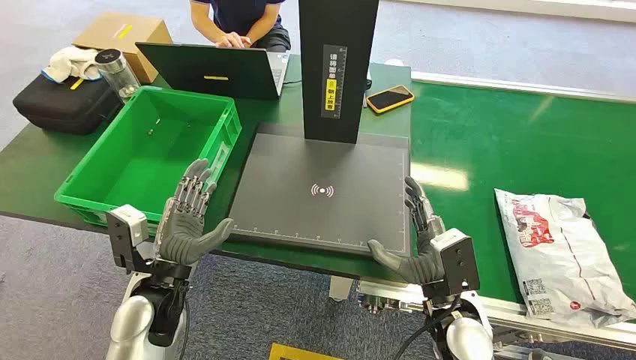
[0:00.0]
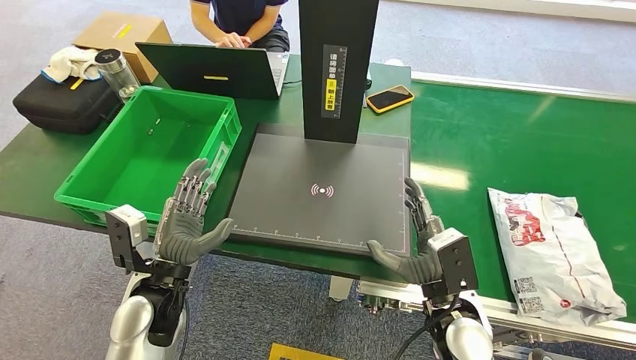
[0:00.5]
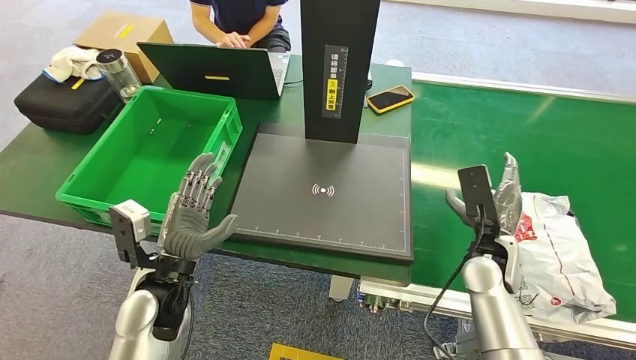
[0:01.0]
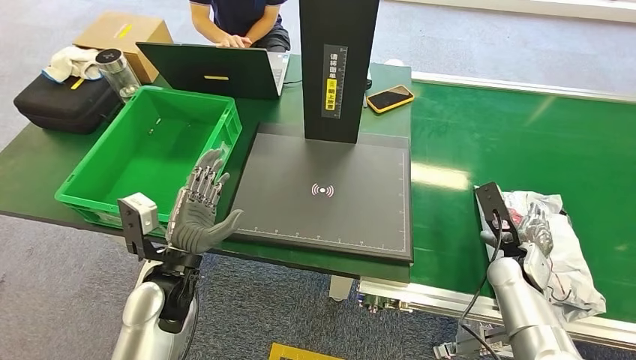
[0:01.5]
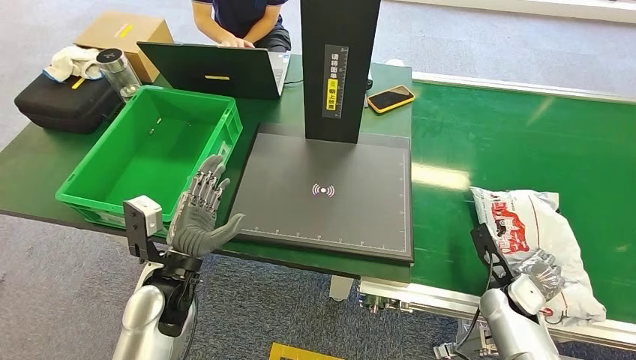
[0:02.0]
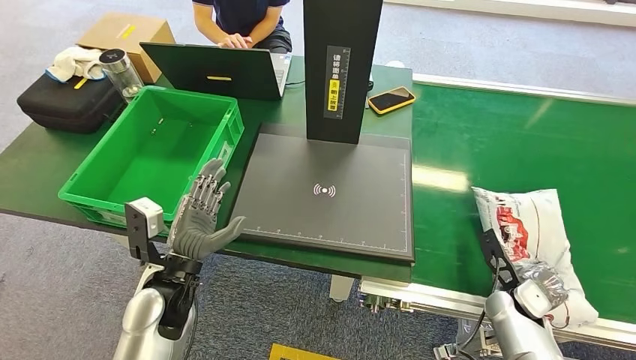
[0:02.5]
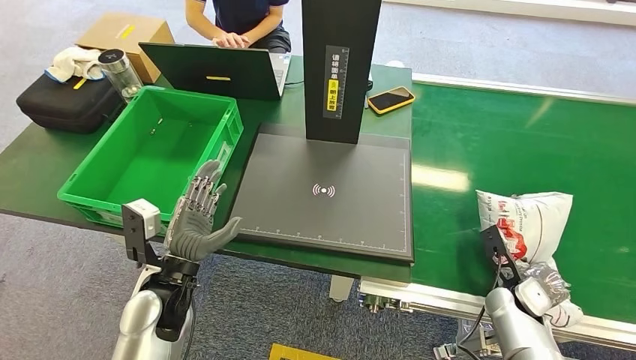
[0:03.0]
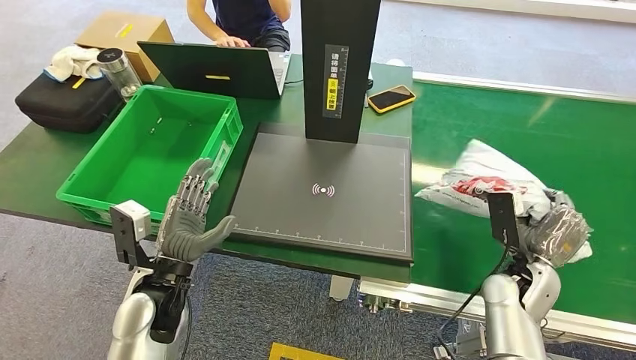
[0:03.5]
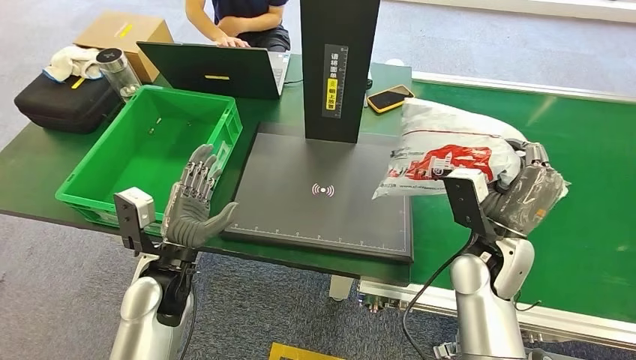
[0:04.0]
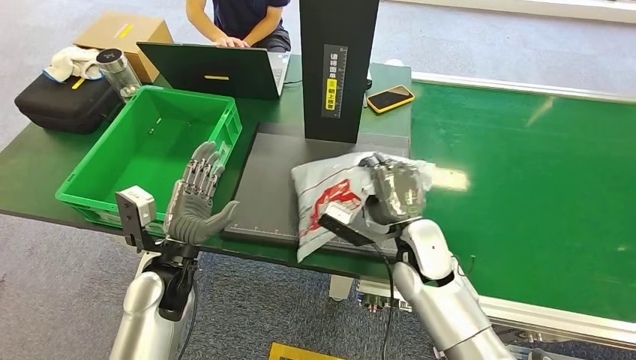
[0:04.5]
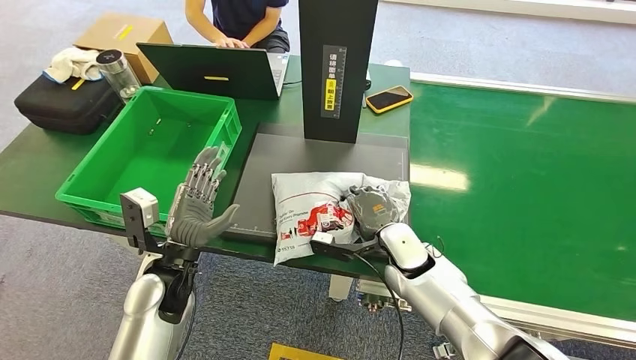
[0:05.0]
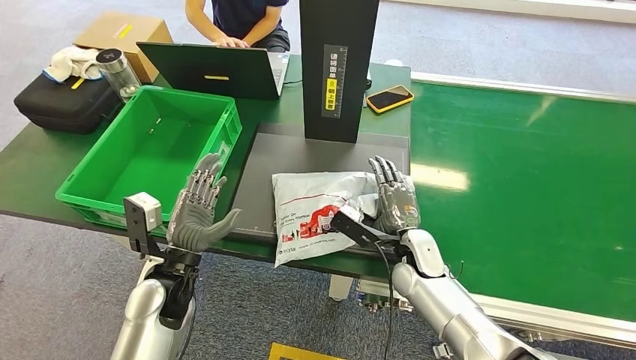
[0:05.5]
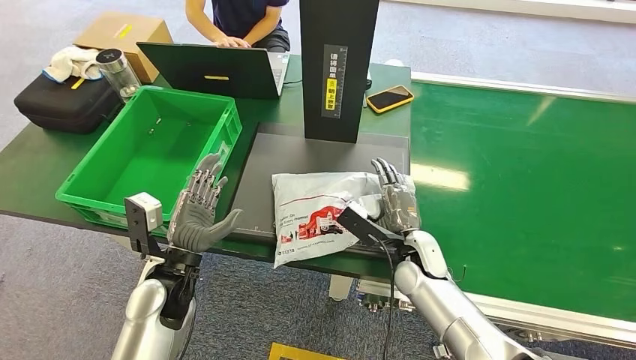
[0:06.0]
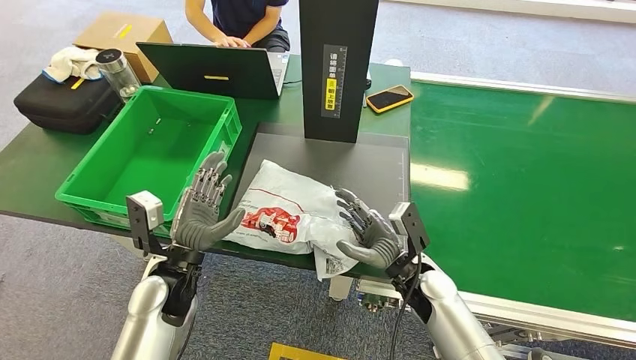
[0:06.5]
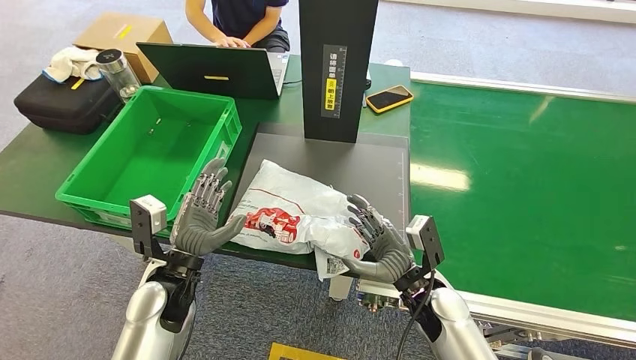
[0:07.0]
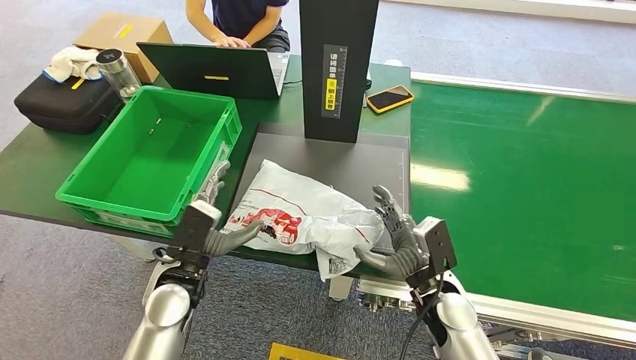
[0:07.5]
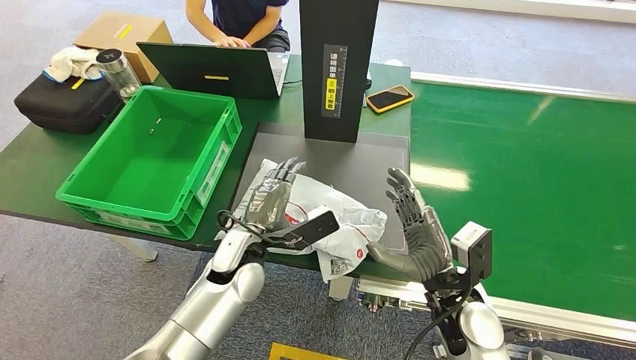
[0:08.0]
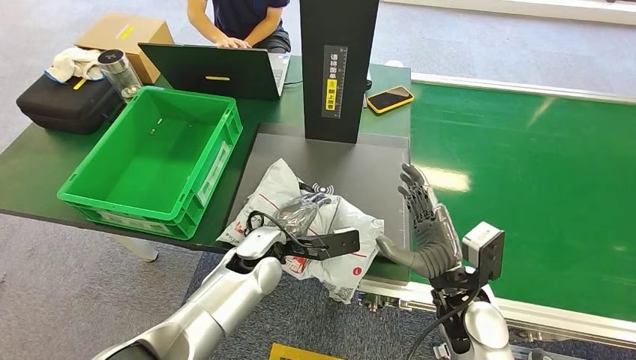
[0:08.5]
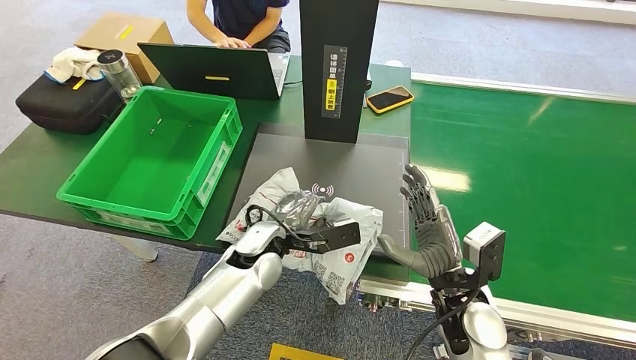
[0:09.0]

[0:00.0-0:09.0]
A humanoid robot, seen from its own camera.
Step, 0:00.0 to 0:03.5: Pick up the package from the conveyor belt.
Step, 0:04.0 to 0:07.5: Place the package onto the inbound machine.
0:04.5 to 0:07.0: The right hand moves downward and backward, about 10 cm.
0:07.0 to 0:09.0: The right hand shifts approximately 5 cm upward; the left hand moves to the right and forward, about 10 cm.

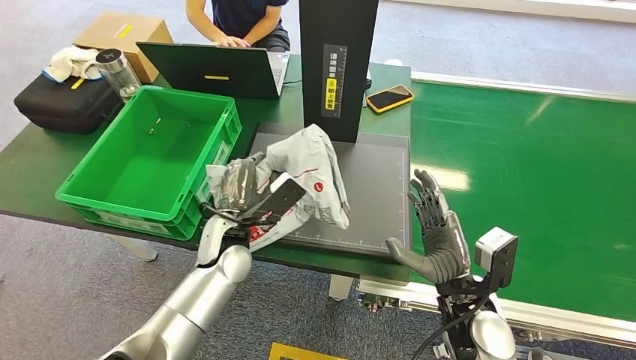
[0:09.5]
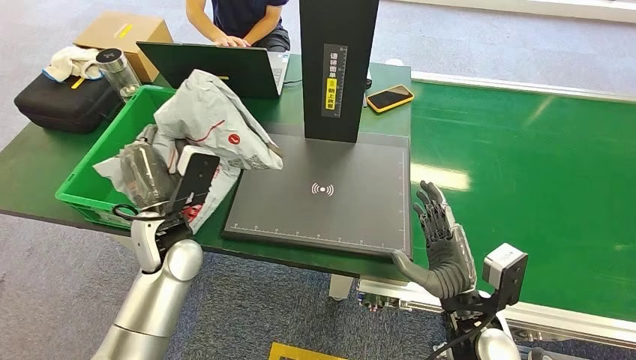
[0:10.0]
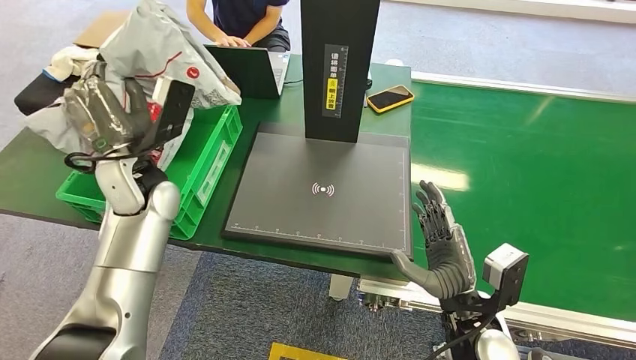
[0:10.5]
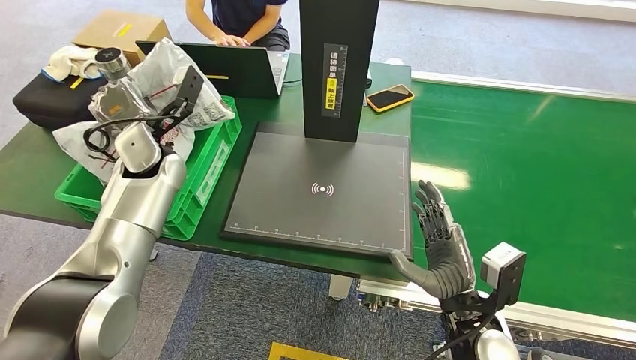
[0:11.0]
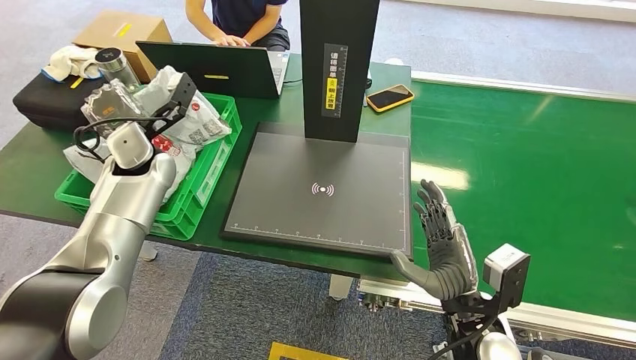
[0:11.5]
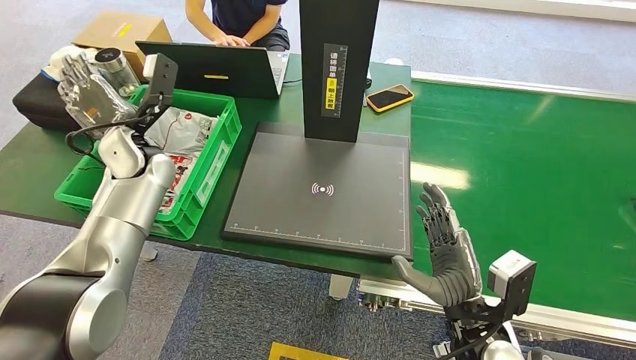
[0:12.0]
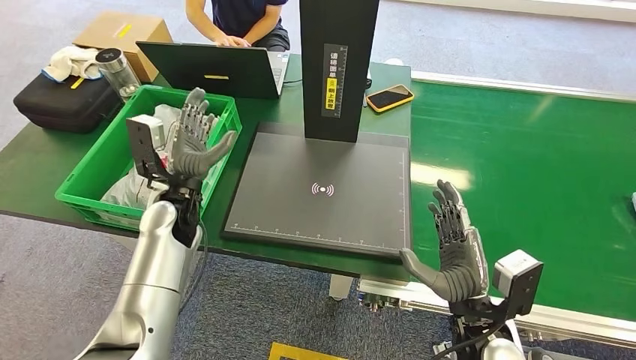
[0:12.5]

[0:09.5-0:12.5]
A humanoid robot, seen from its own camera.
Step, 0:10.0 to 0:12.5: Place the package into the parcel locker.
